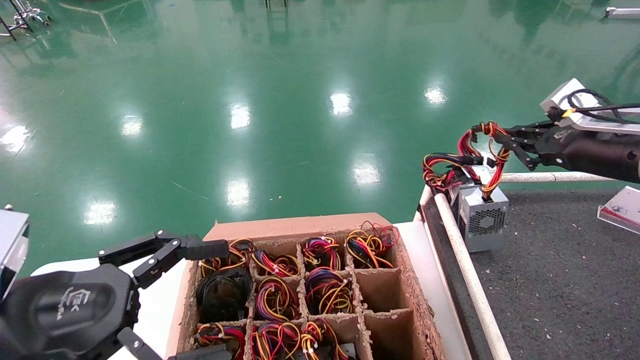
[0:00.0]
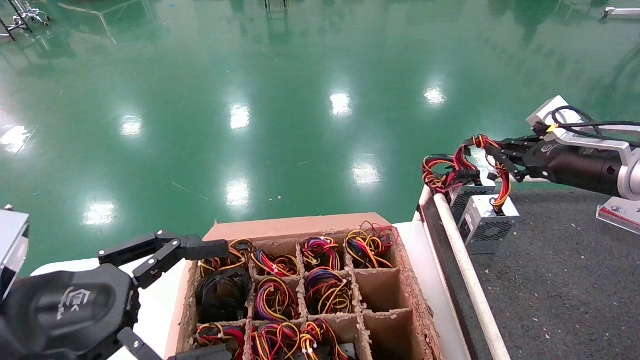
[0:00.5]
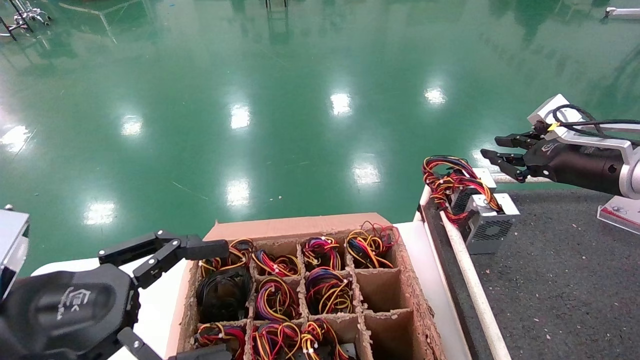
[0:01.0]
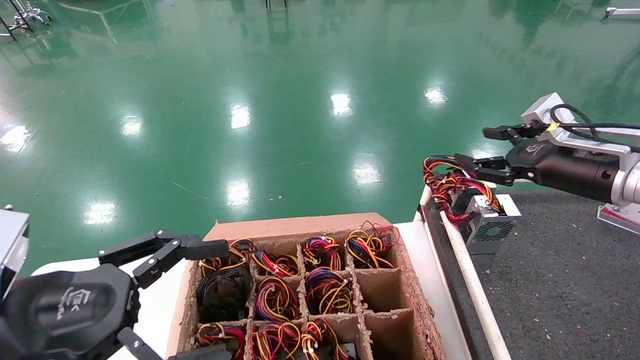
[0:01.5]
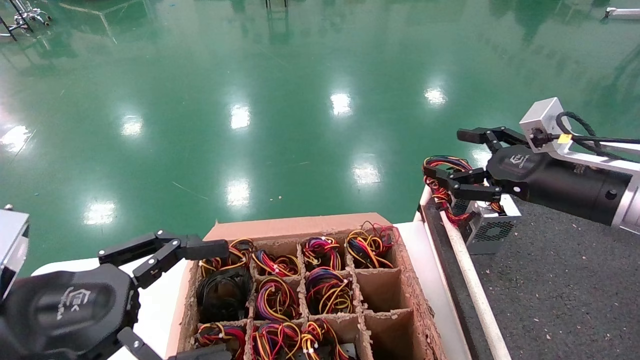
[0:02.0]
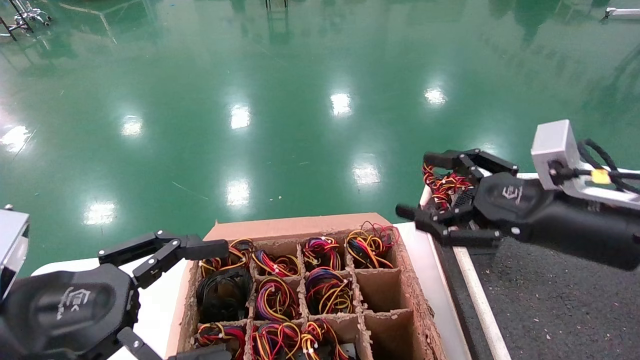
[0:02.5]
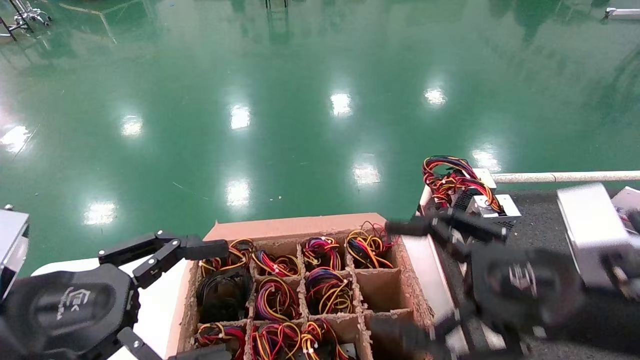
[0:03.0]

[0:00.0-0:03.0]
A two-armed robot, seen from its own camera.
Step, 0:00.0 to 0:03.0: Place the power supply on the operating table.
0:00.0 to 0:01.5: The right gripper goes some 20 cm to the right and upward.
0:01.5 to 0:03.0: The right gripper shifts about 10 cm forward and downward.
